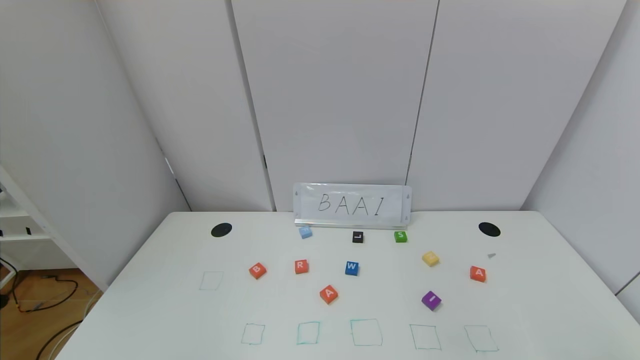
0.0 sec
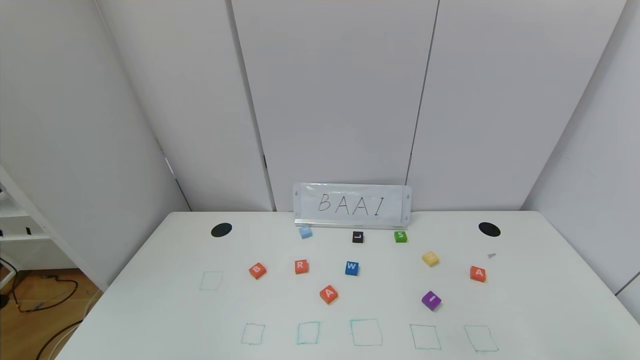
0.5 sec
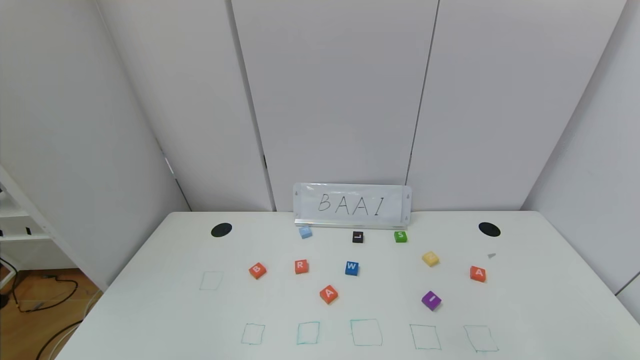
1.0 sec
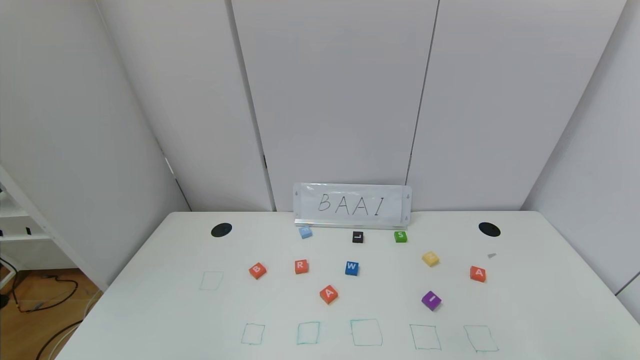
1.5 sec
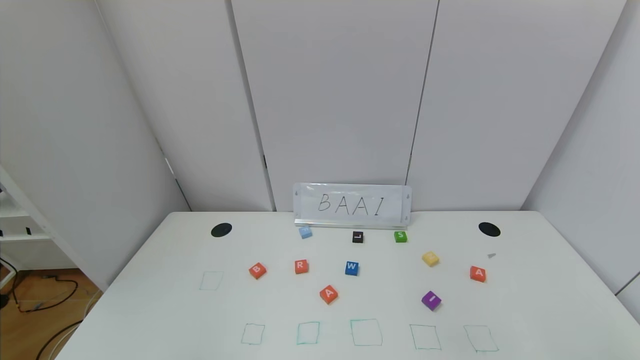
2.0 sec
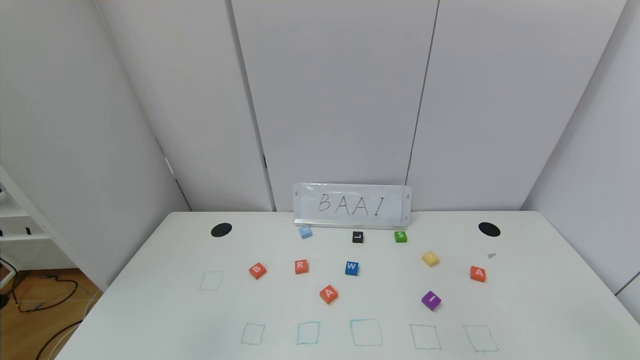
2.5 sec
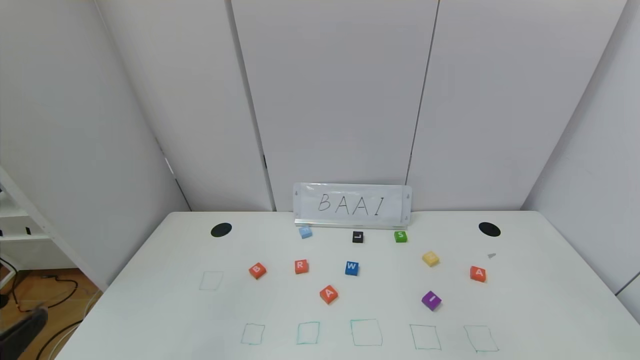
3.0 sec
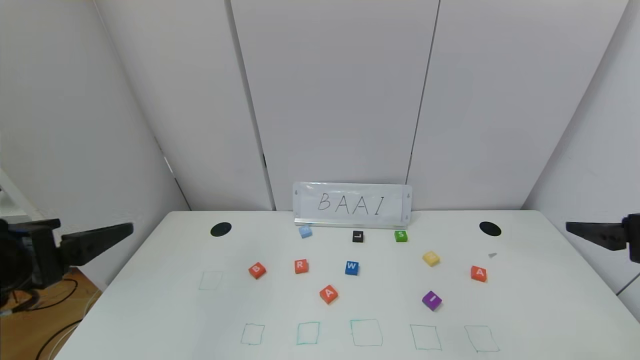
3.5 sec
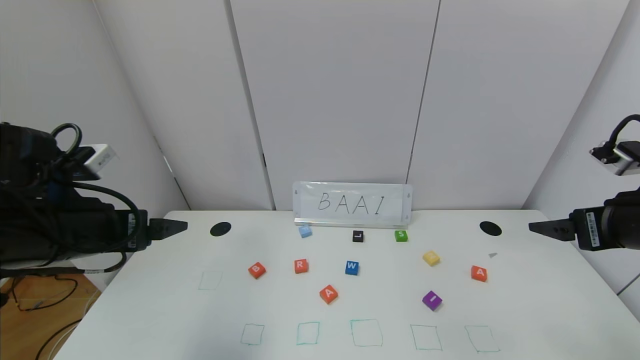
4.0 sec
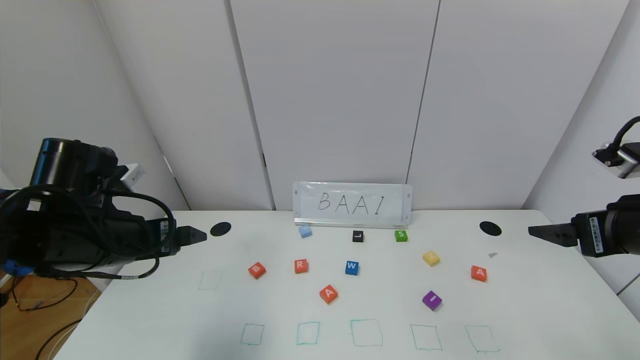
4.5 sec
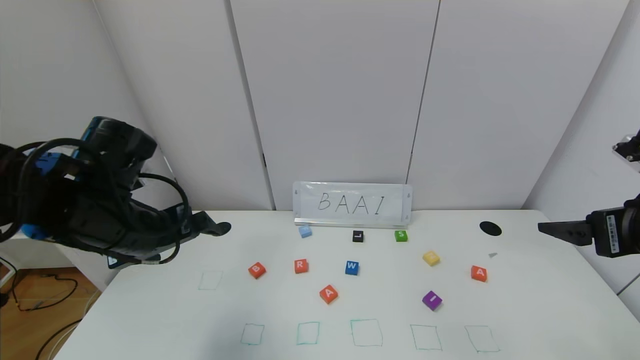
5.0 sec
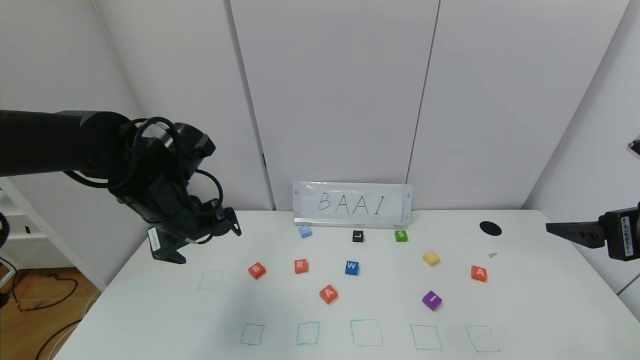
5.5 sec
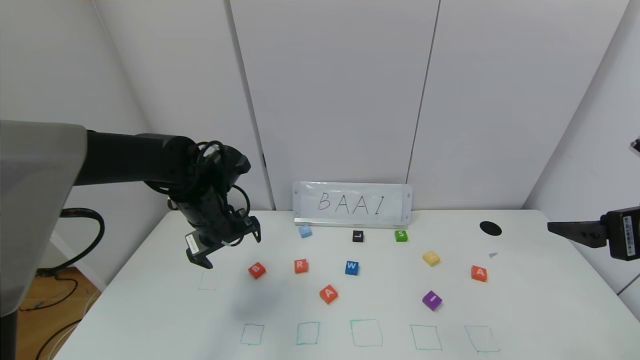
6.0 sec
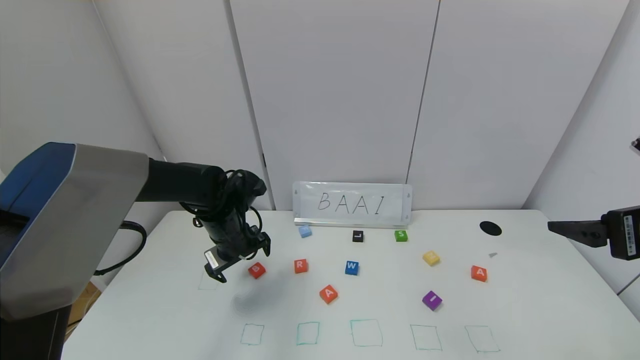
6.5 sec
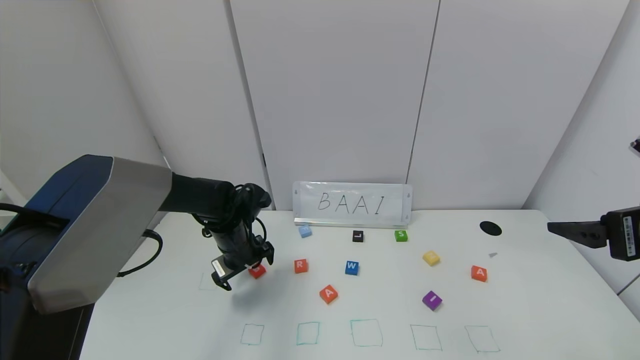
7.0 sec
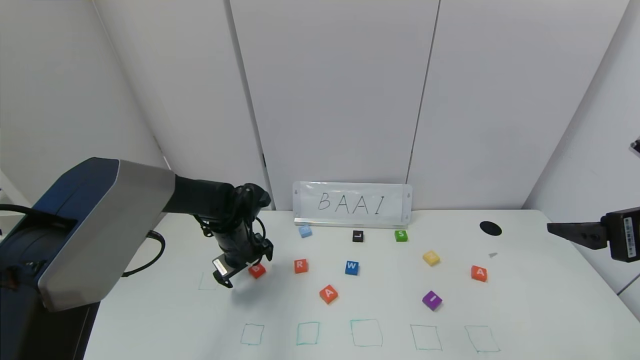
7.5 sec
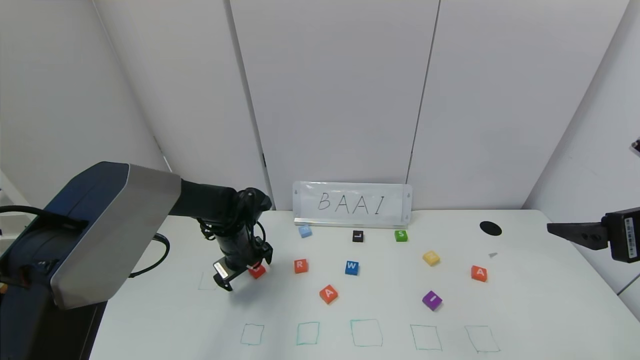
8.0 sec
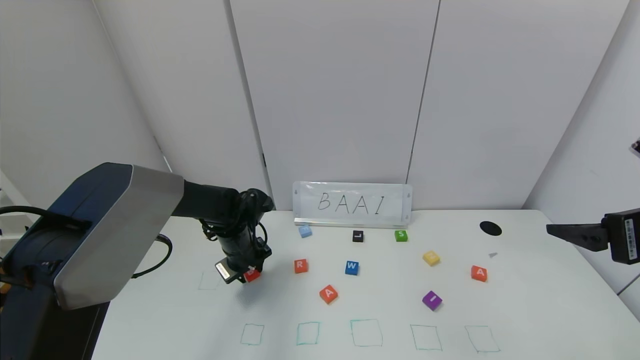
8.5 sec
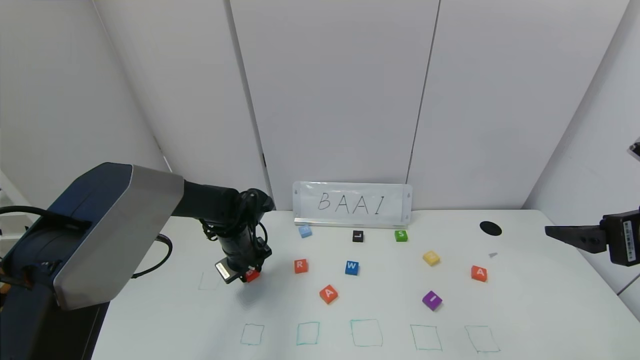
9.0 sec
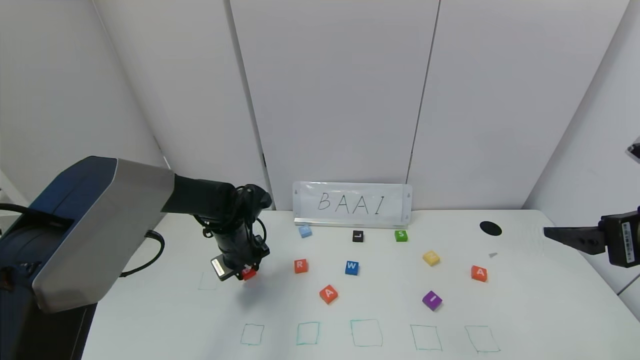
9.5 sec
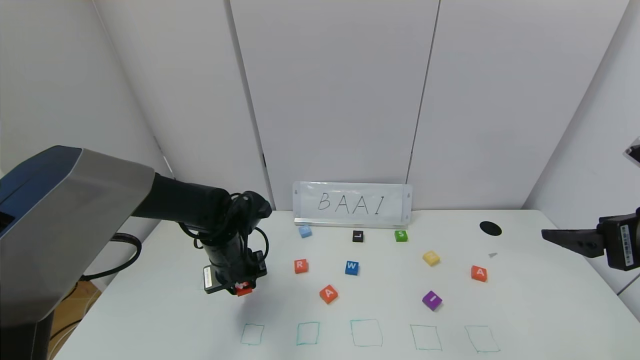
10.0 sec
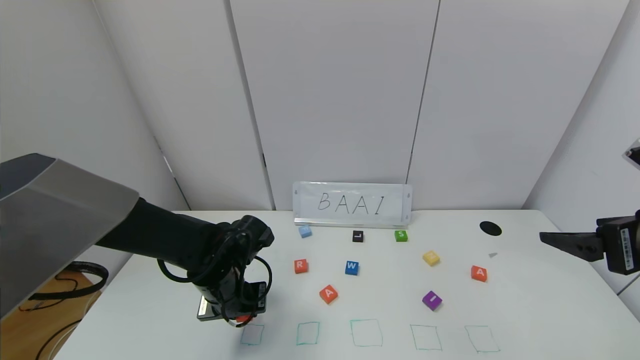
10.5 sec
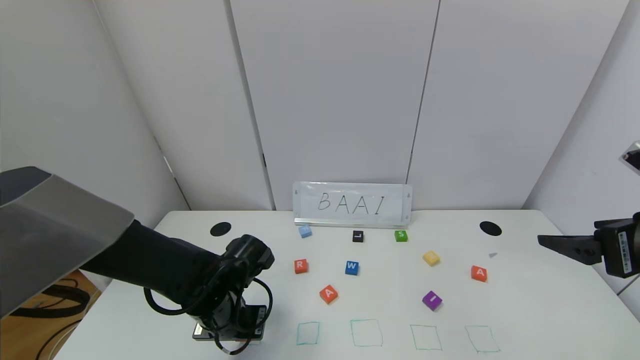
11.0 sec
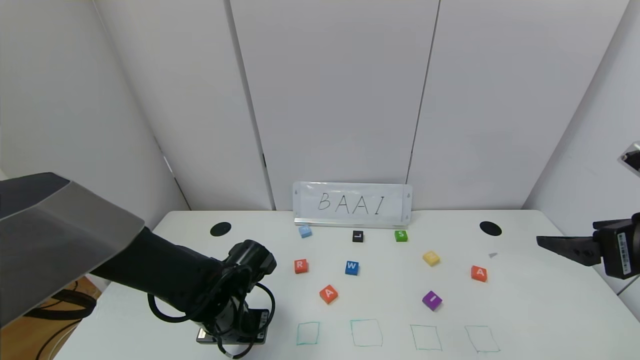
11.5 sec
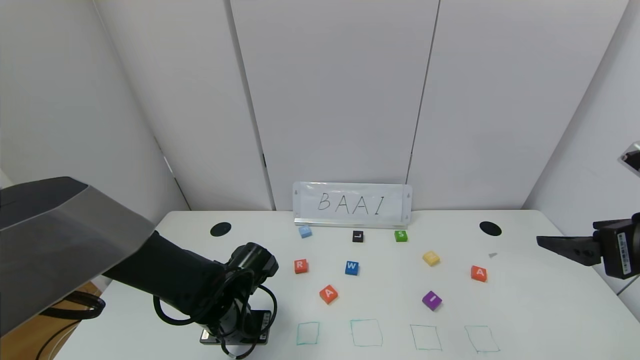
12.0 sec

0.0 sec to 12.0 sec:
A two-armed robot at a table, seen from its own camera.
Task of the whole recording: use the gripper to find blocks with the letters b, a, a, and i on the table and arrange them into BAAI, then find r and N and turn the arranged baai into brian.
2.0 sec to 4.0 sec: Both grippers move forward and upward, about 30 cm.
4.0 sec to 6.0 sec: The left gripper shifts roughly 20 cm forward, to the right and downward.
6.0 sec to 8.0 sec: The left gripper heads downward, covering some 10 cm.
8.0 sec to 10.0 sec: The left gripper travels backward by approximately 5 cm, and closes.
10.0 sec to 12.0 sec: The left gripper goes about 10 cm backward.

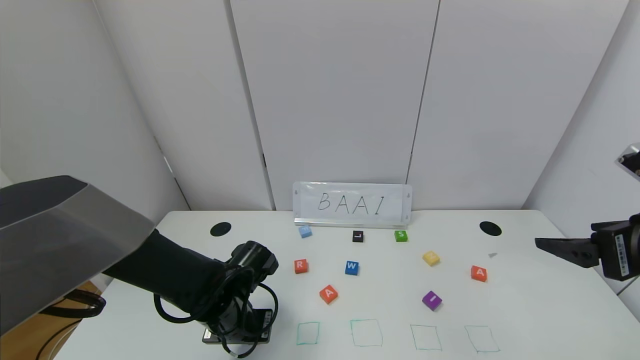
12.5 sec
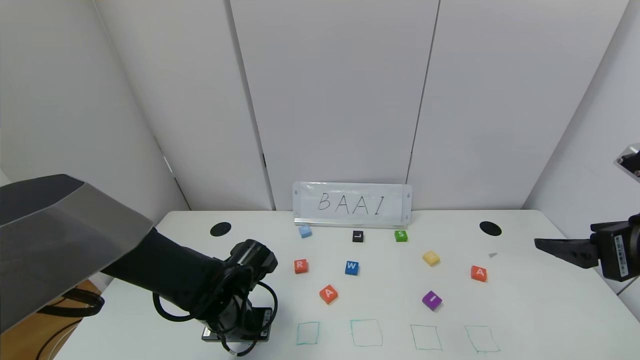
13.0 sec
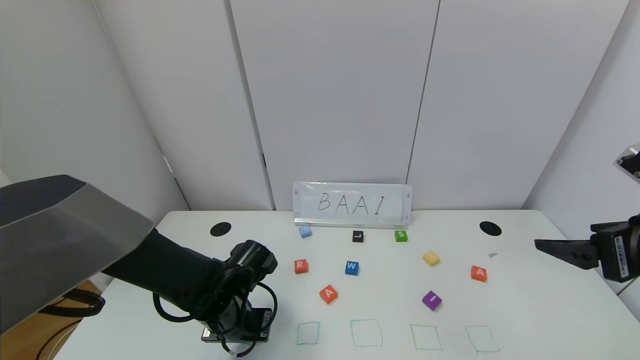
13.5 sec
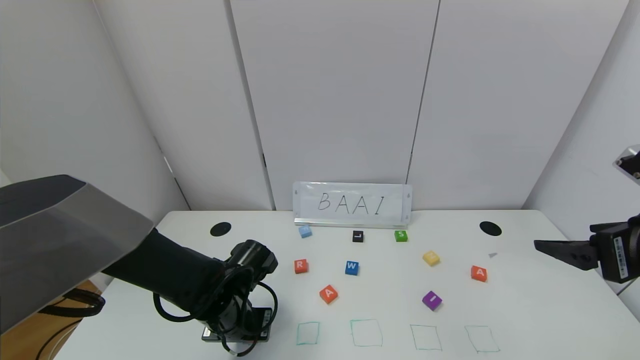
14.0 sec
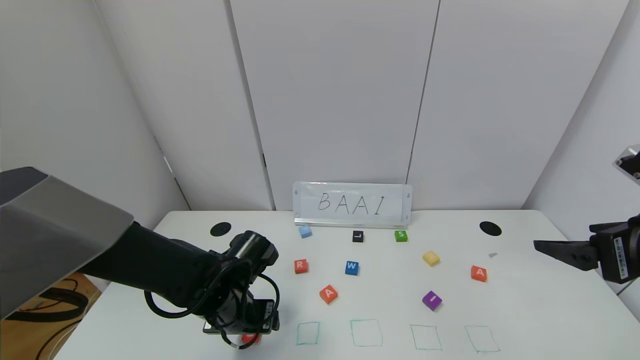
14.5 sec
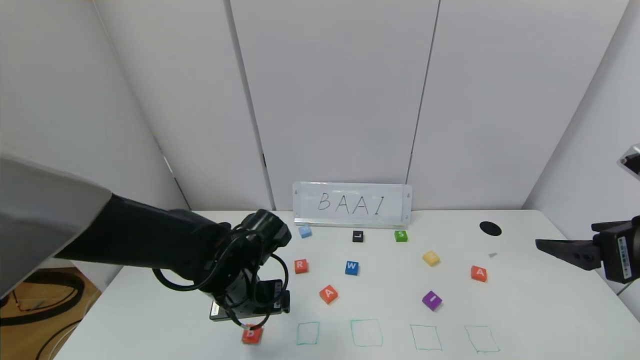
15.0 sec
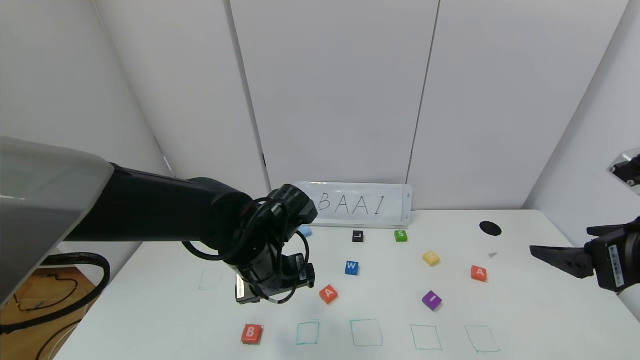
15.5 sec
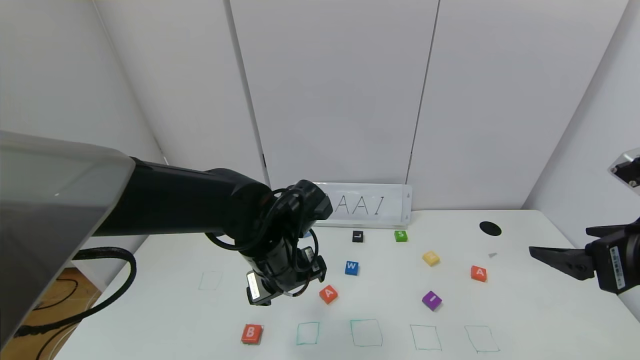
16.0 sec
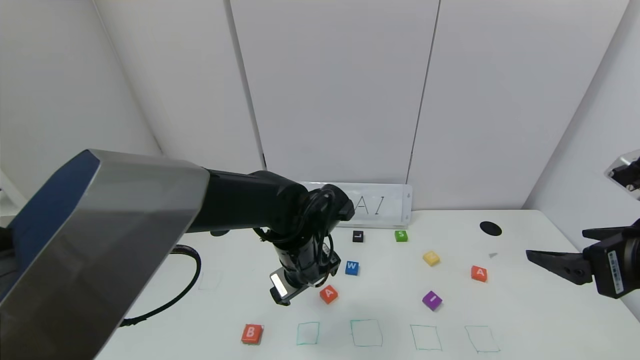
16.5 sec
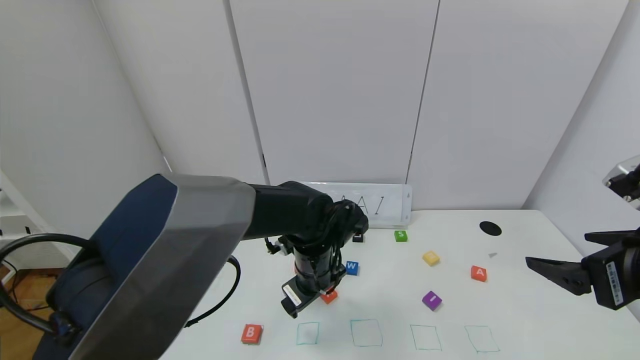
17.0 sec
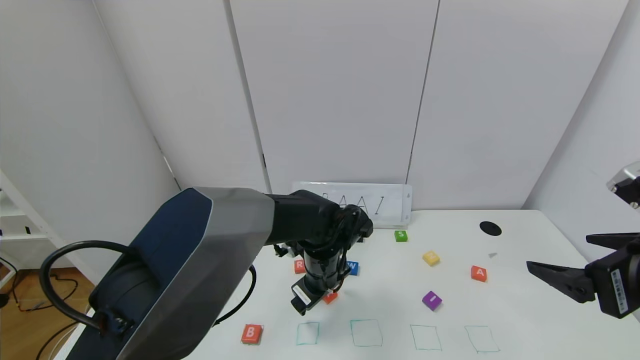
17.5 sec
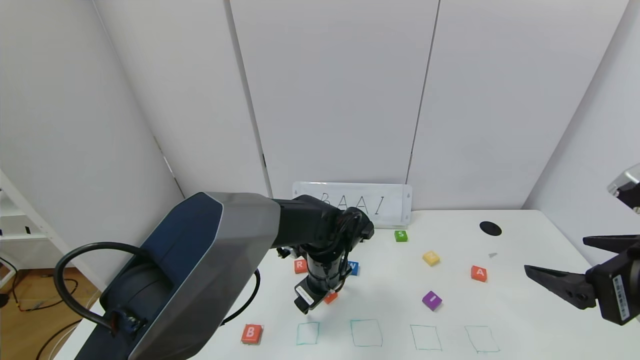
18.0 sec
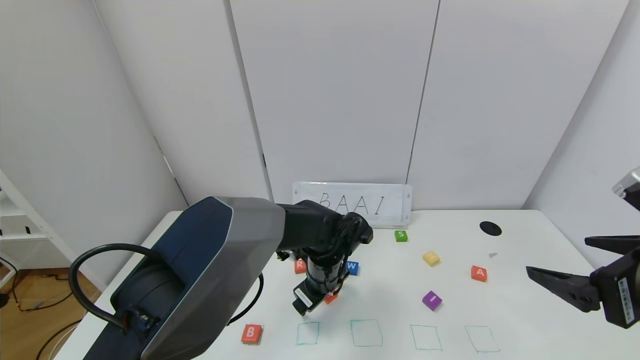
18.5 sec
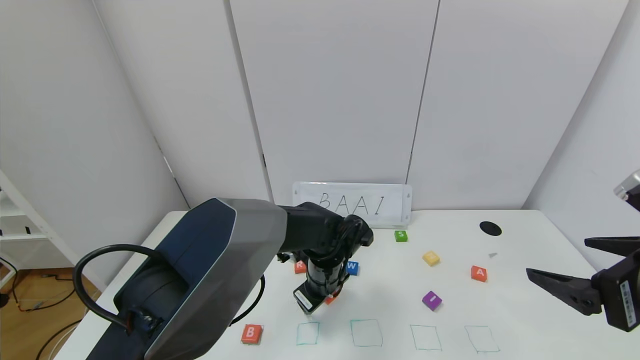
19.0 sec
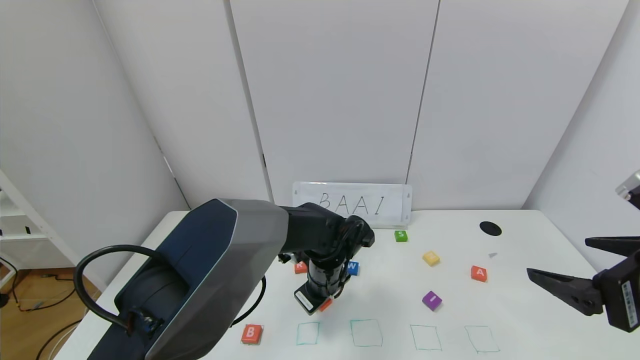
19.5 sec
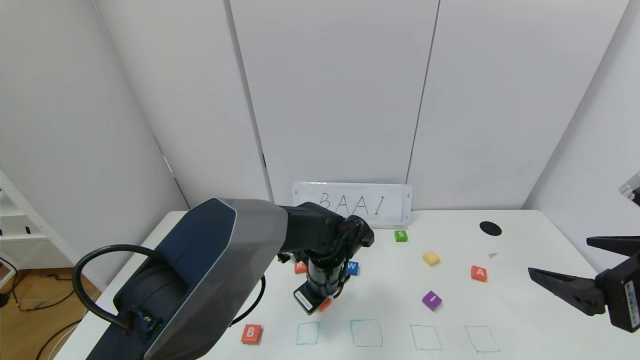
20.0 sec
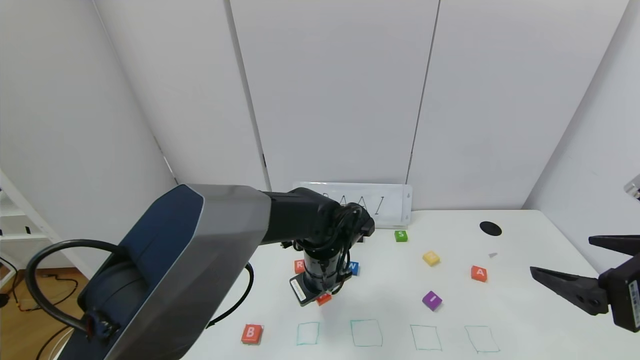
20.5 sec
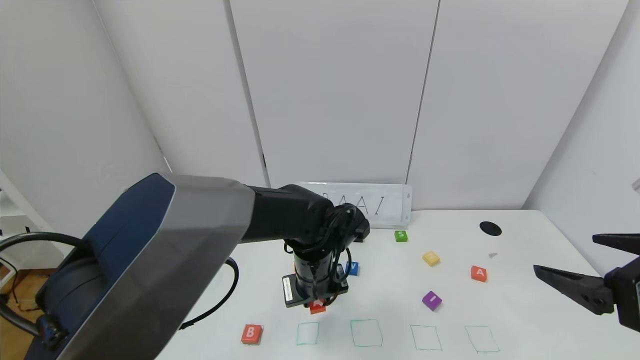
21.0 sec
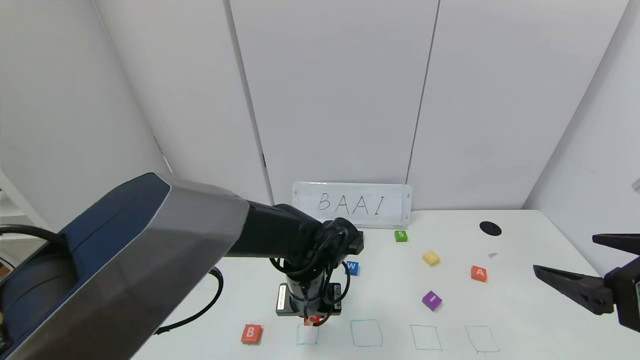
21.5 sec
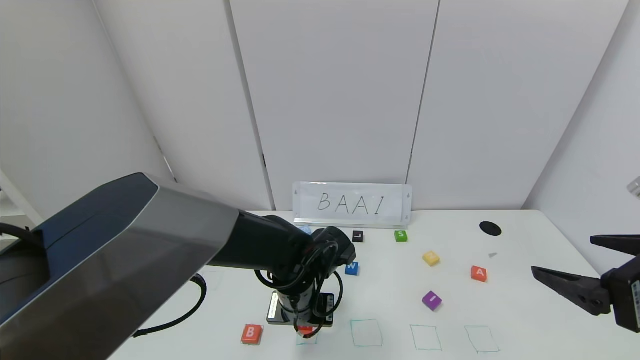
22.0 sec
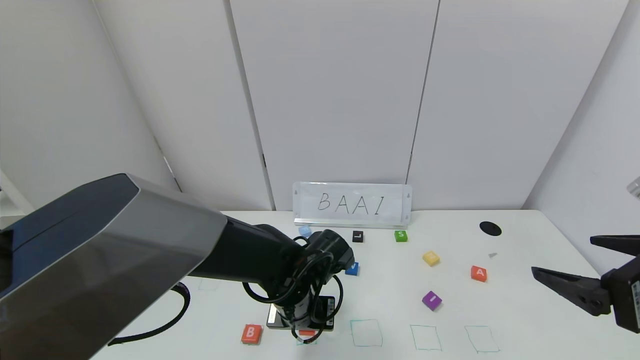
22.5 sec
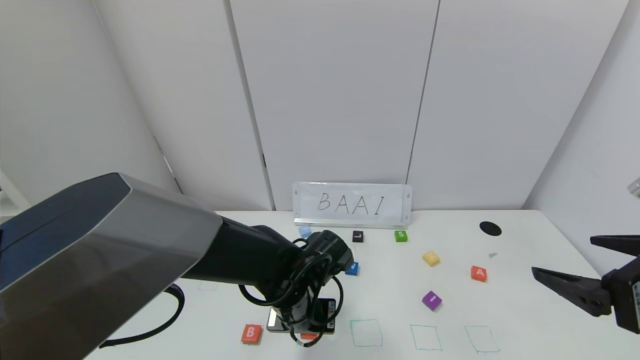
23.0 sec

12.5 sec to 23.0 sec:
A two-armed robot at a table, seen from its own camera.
Task of the whole recording: use the gripper to find blocks with the letters b, a, a, and i on the table and arrange them into BAAI, then find r and N and turn the arranged baai into brian.
12.5 sec to 14.5 sec: The left gripper opens up.
14.5 sec to 16.5 sec: The left gripper is displaced to the right and upward by roughly 10 cm.
16.5 sec to 19.0 sec: The left gripper is displaced downward by some 5 cm, and closes its fingers.
19.0 sec to 21.0 sec: The left gripper moves approximately 5 cm, and closes.
21.0 sec to 23.0 sec: The left gripper changes place by about 5 cm.
